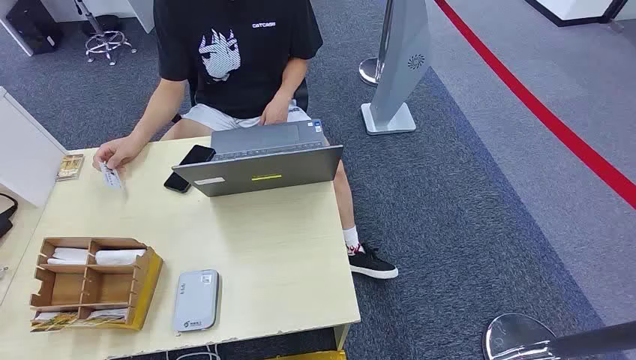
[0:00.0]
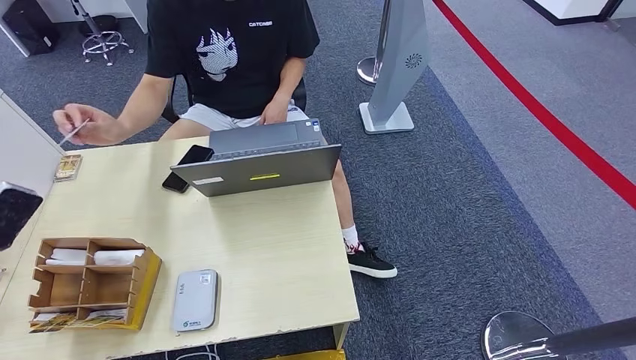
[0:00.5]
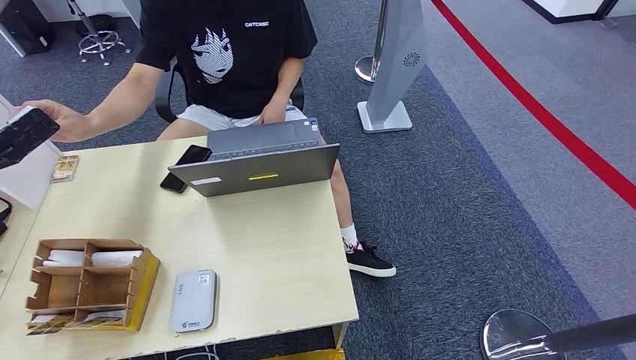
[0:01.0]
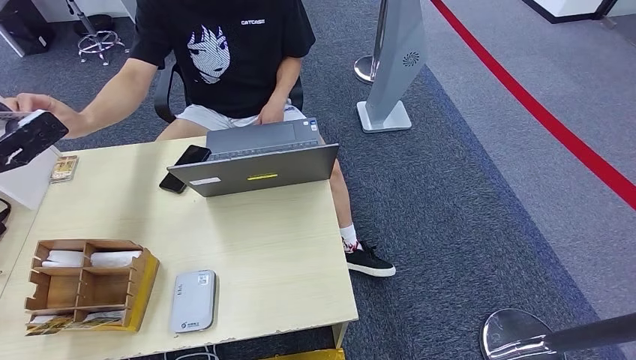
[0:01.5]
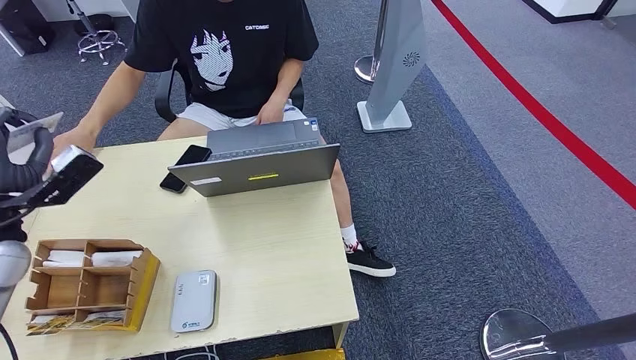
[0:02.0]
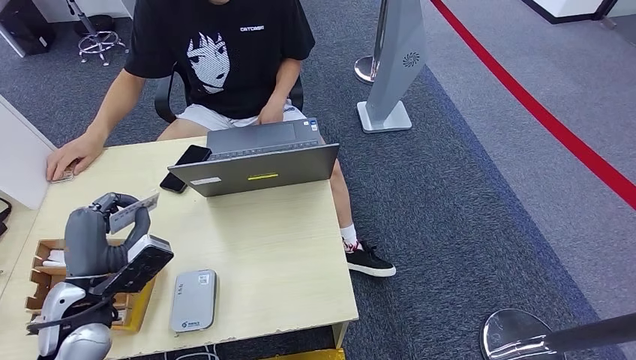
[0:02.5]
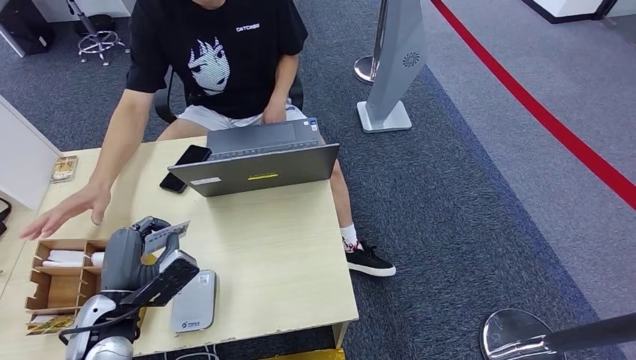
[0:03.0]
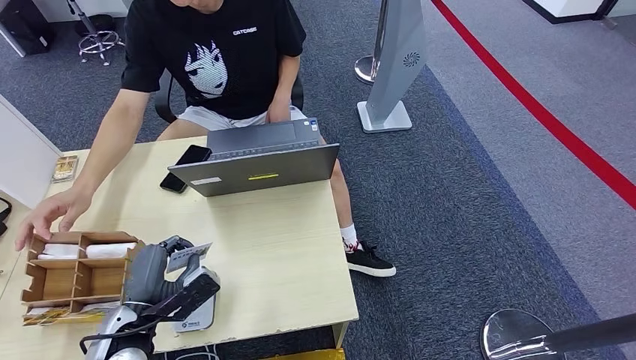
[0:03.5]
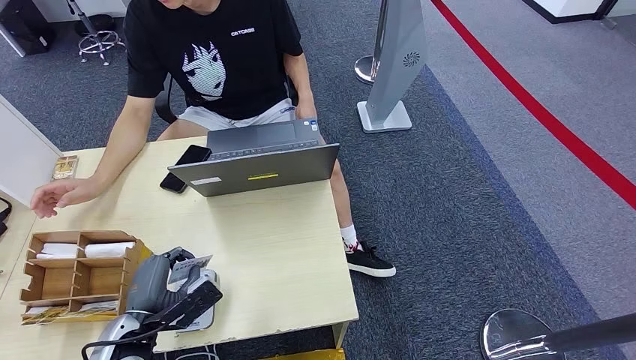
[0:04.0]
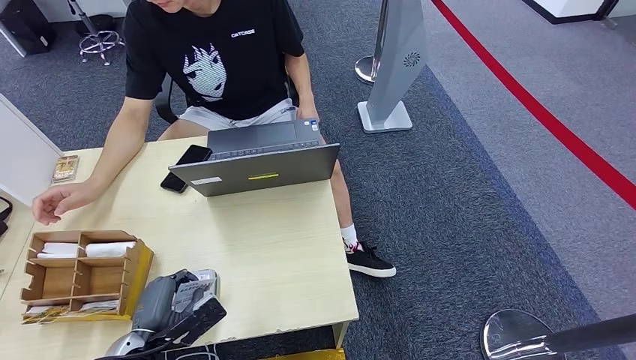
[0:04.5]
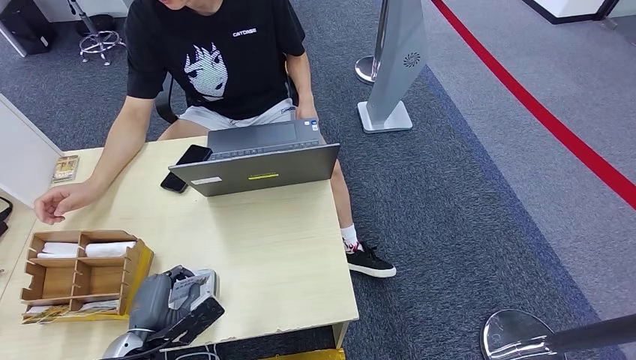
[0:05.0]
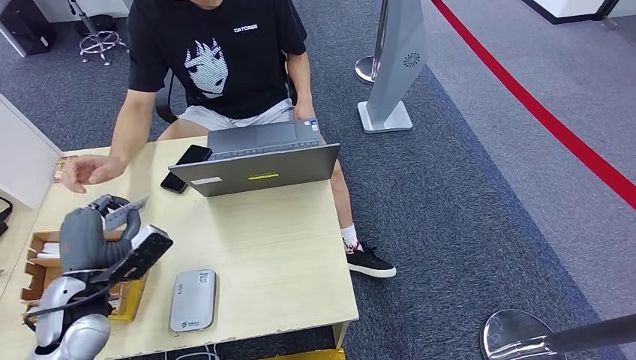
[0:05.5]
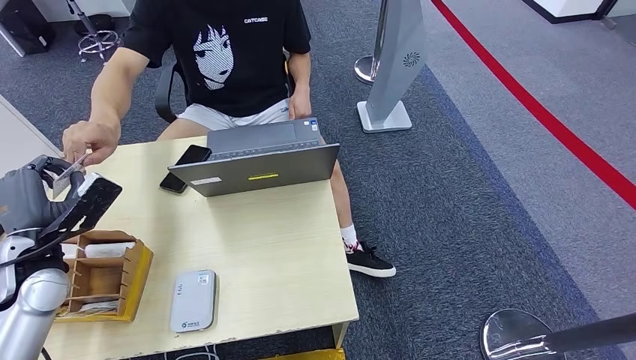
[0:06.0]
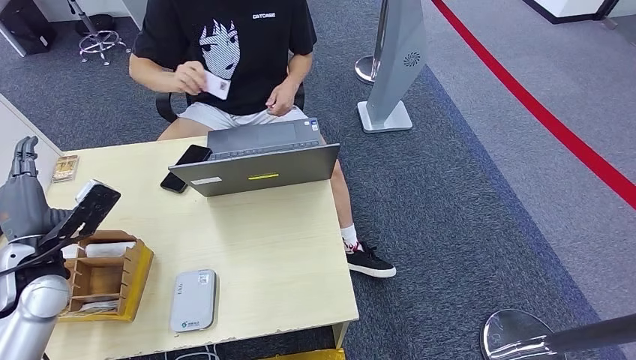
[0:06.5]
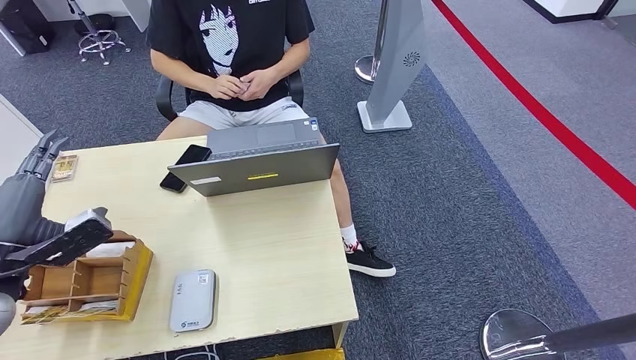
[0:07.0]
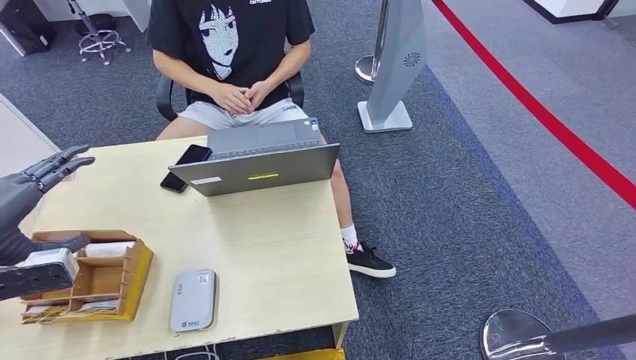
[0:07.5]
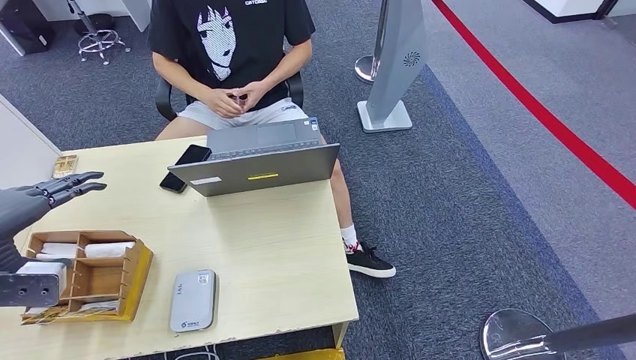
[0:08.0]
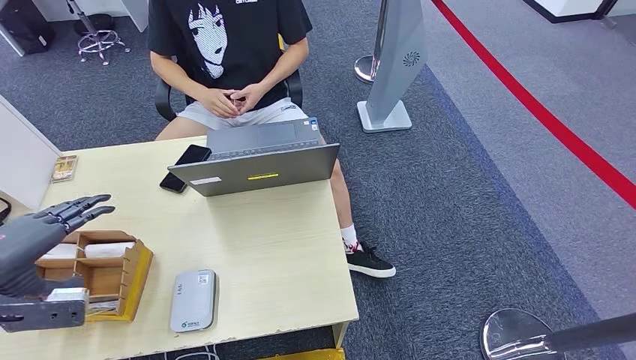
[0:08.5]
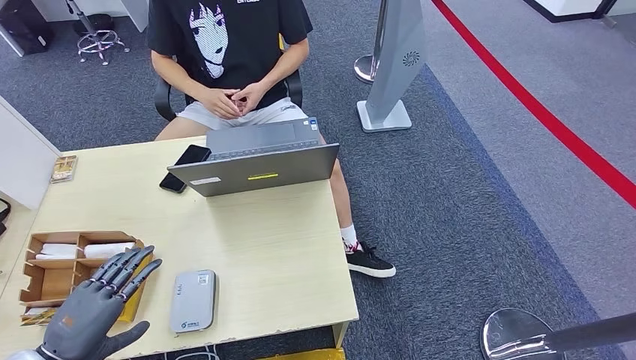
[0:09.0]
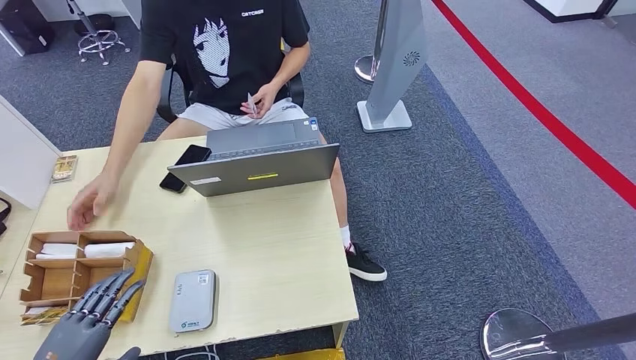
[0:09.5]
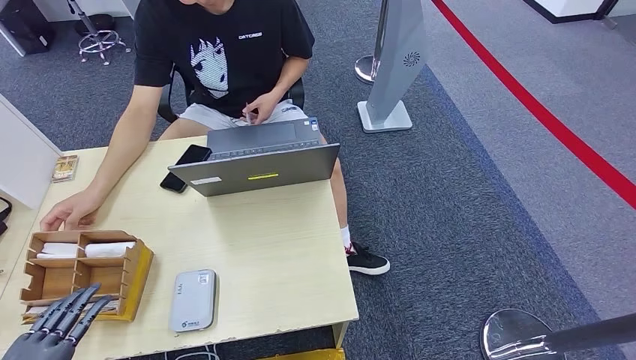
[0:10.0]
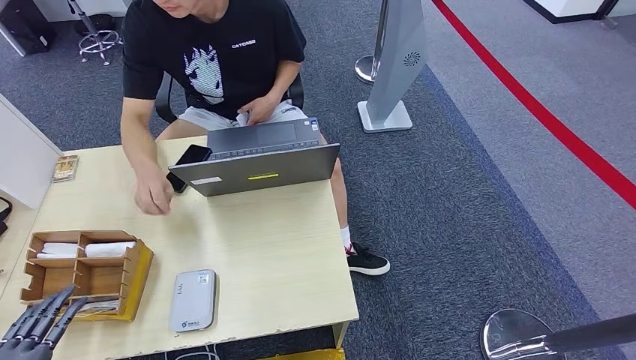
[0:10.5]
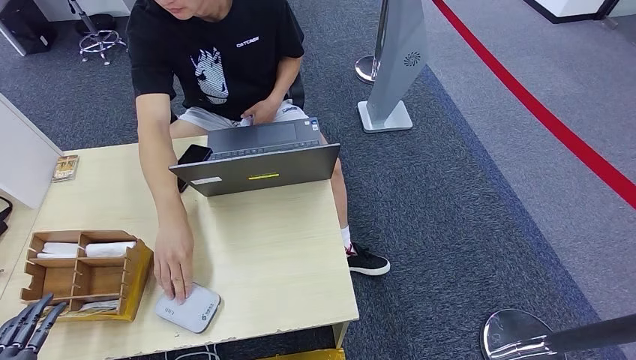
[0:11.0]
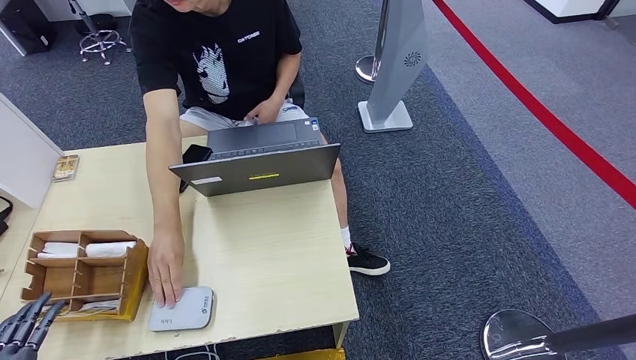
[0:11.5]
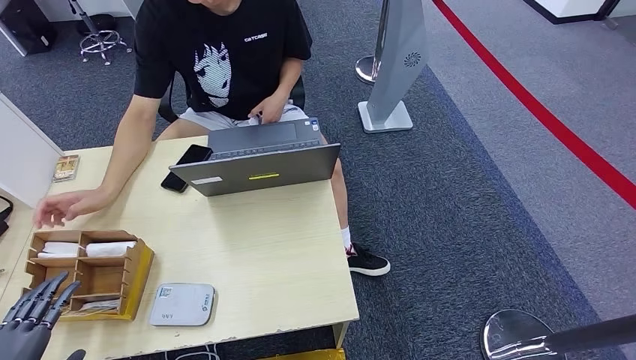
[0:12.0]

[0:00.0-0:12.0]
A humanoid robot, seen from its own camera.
Step, 0:00.0 to 0:02.0: Take the ID card from the person's hand.
Step, 0:02.5 to 0:04.0: Place the ID card on the card reader.
Step, 0:04.5 to 0:09.0: Hand the ID card to the person.
0:02.0 to 0:04.0: The left hand travels downward, to the right and backward by some 25 cm.
0:04.0 to 0:06.0: The left hand shifts approximately 20 cm forward, to the left and upward.
0:06.0 to 0:08.0: The left hand heads upward, to the left and backward, covering roughly 15 cm.
0:08.0 to 0:10.0: The left hand moves backward and downward, roughly 25 cm.
0:10.0 to 0:12.0: The hands stay close to where they were, moving slightly.

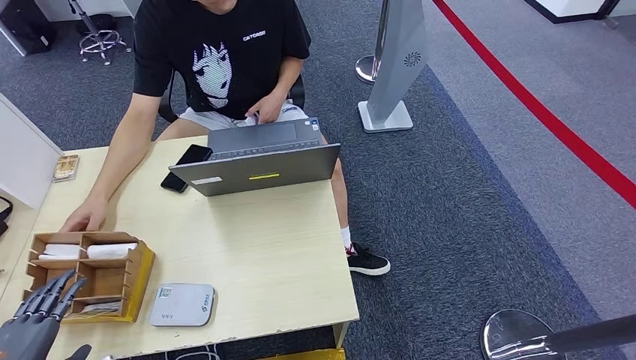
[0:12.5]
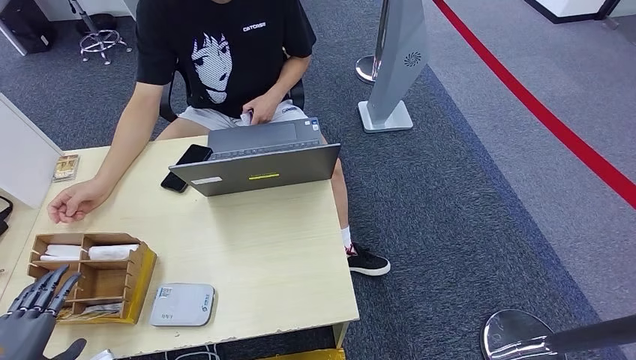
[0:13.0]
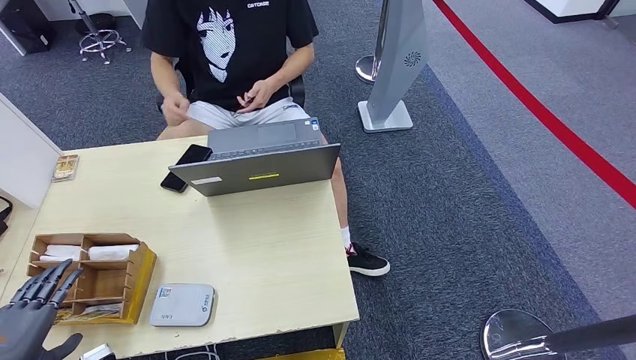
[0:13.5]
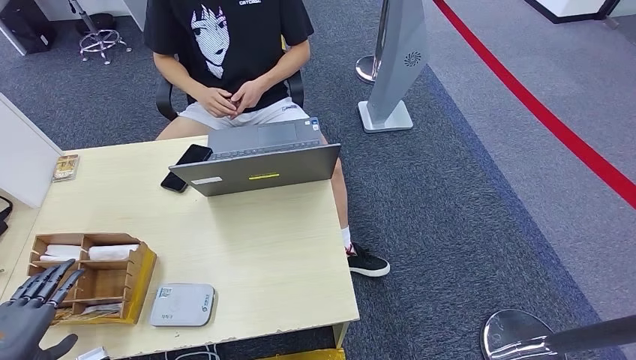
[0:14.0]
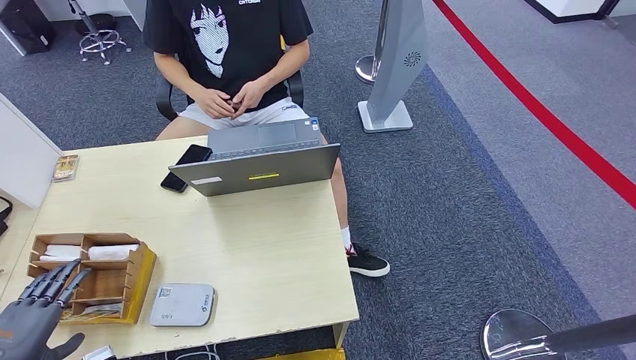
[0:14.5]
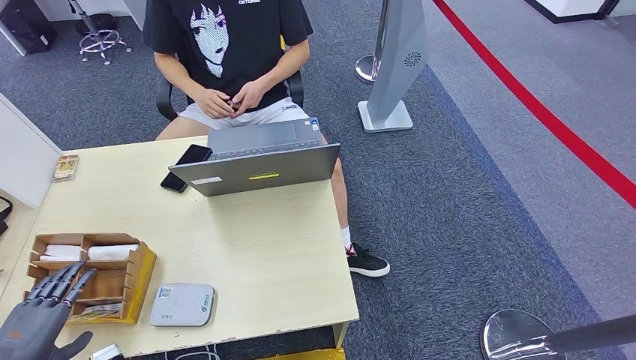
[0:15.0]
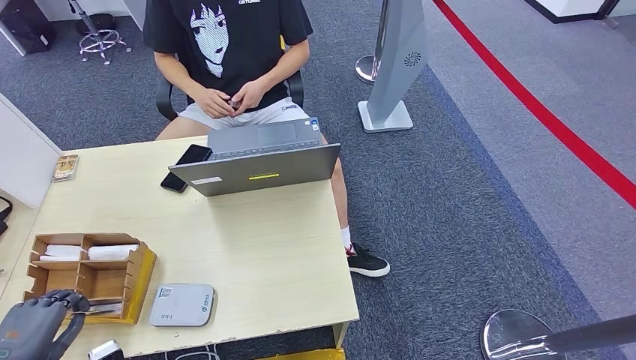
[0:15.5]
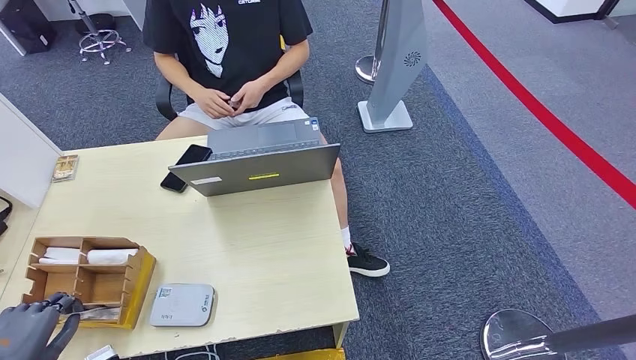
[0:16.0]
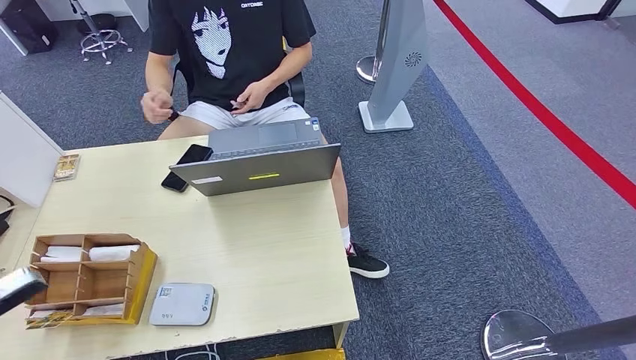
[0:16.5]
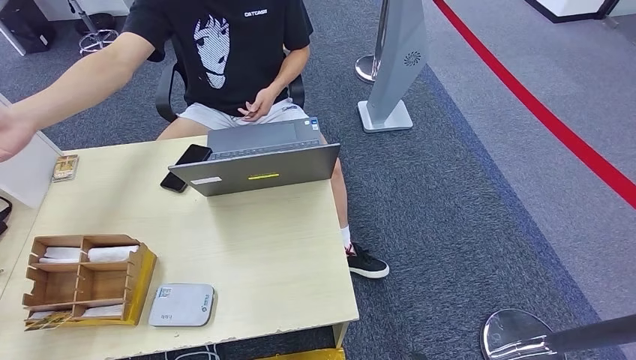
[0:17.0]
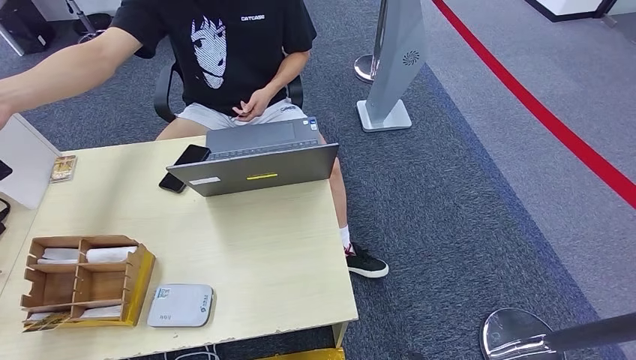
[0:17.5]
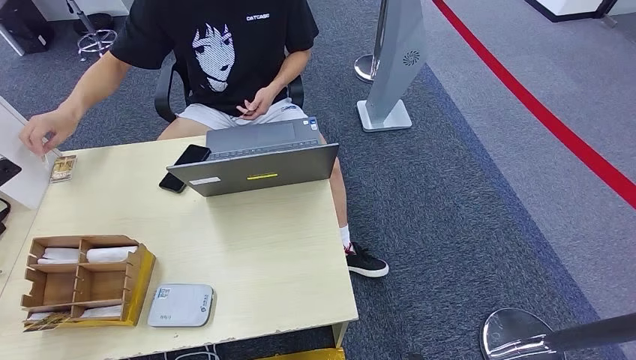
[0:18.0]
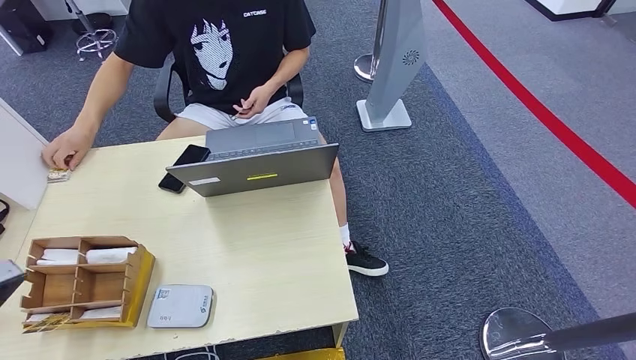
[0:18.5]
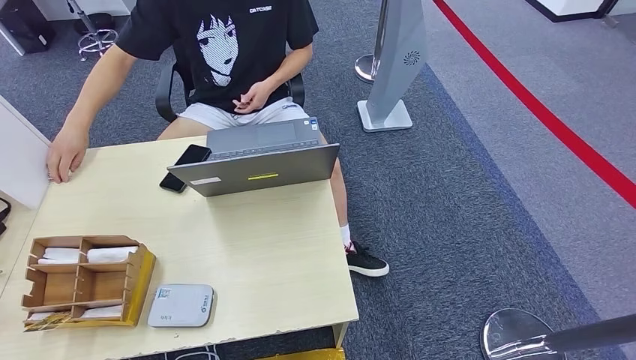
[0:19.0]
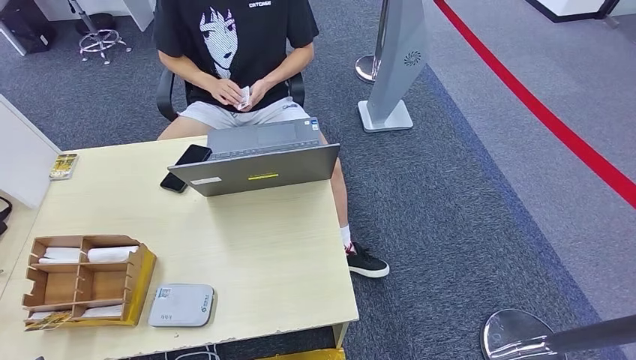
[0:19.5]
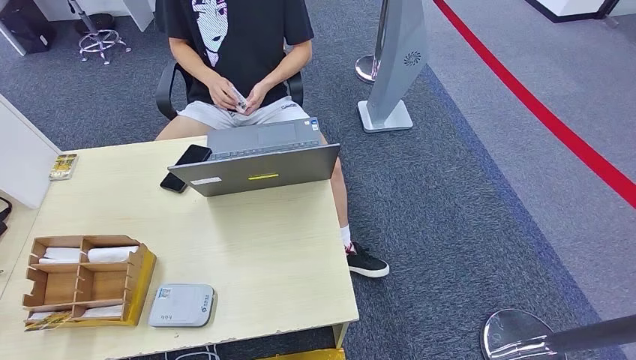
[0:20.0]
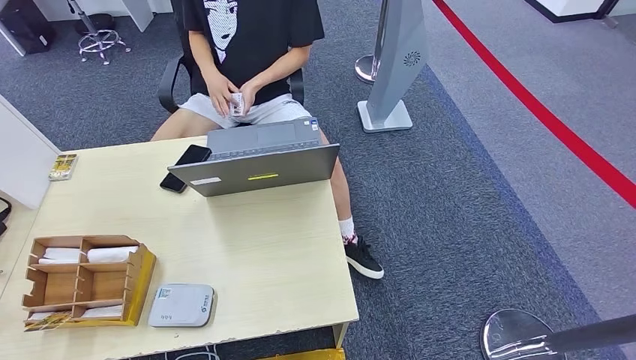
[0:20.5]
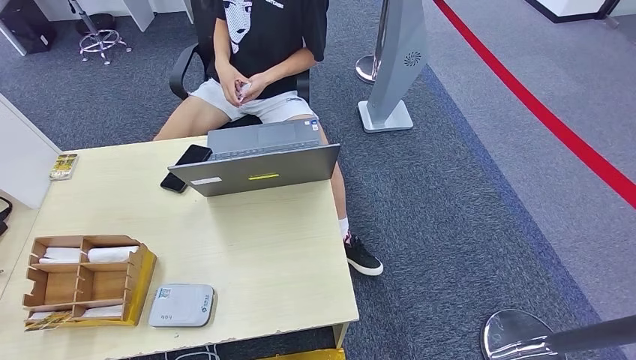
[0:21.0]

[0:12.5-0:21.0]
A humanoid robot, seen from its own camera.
Step, 0:12.5 to 0:16.5: Pick up the room key from the key card box.
Step, 0:17.0 to 0:21.0: Hand the room key to the person.
0:12.5 to 0:14.5: The hands move only a little.
0:14.5 to 0:16.5: The left hand shifts roughly 15 cm upward and forward.
0:16.5 to 0:19.0: The left hand is displaced backward, to the right and downward by roughly 15 cm.
0:19.0 to 0:21.0: The left hand moves downward and backward, approximately 30 cm.
